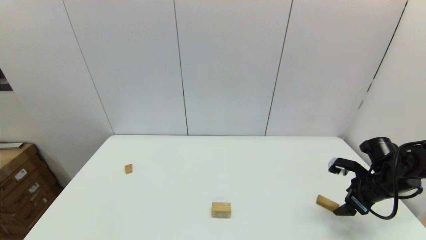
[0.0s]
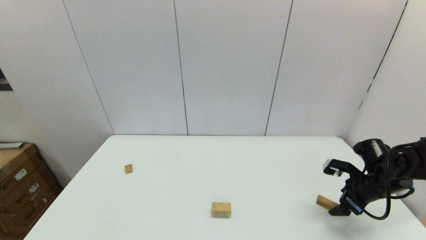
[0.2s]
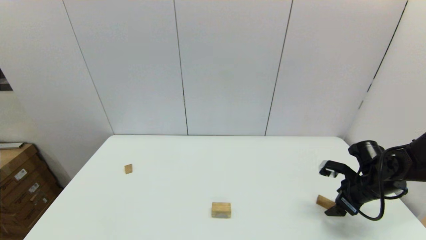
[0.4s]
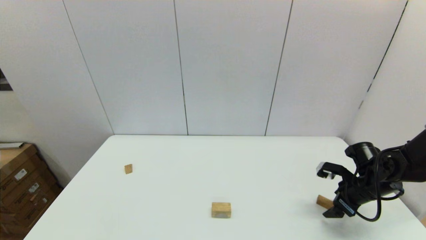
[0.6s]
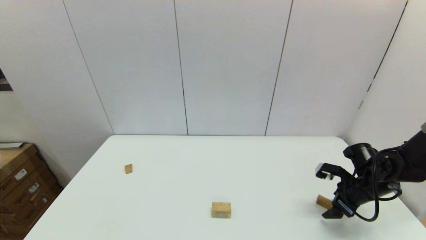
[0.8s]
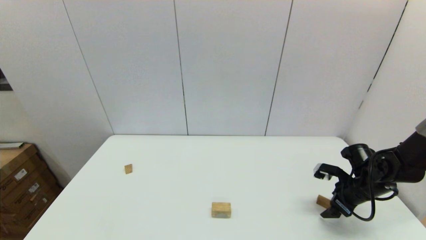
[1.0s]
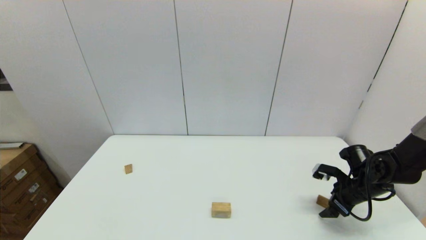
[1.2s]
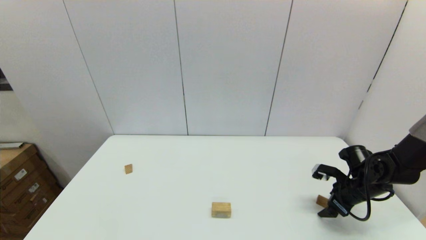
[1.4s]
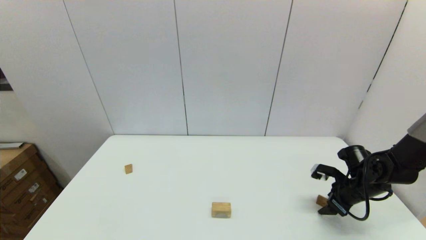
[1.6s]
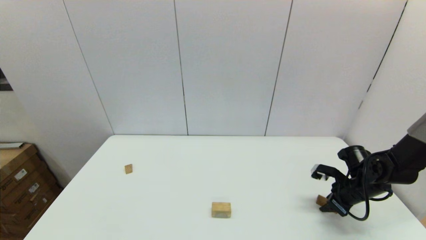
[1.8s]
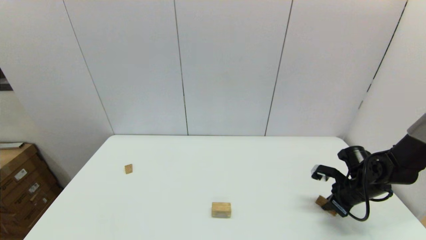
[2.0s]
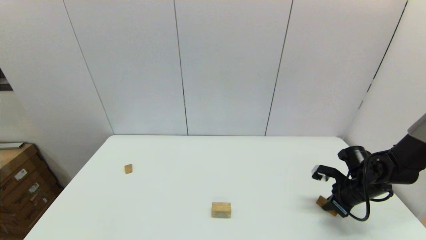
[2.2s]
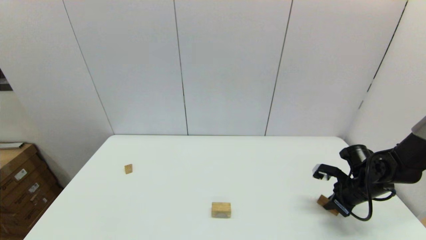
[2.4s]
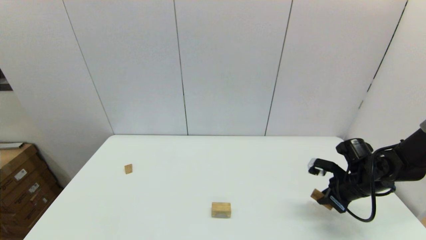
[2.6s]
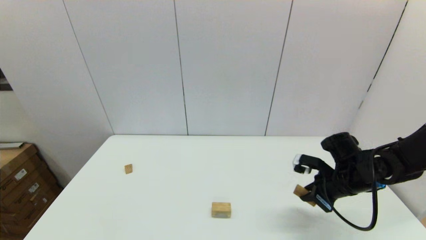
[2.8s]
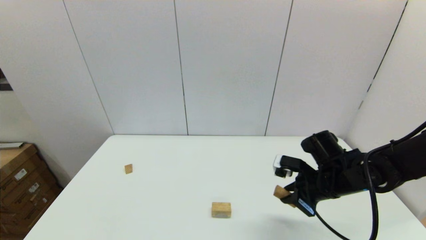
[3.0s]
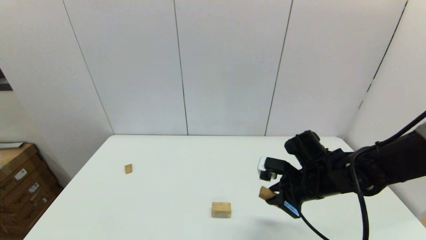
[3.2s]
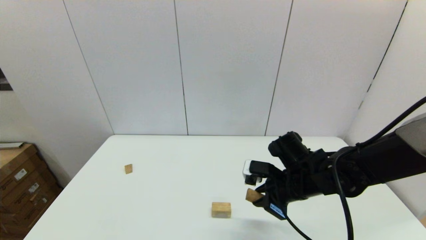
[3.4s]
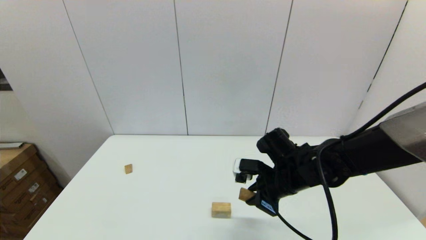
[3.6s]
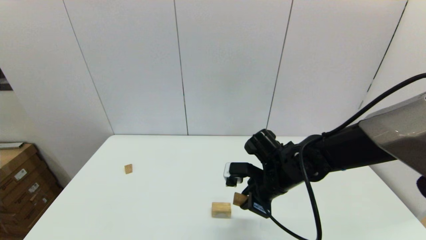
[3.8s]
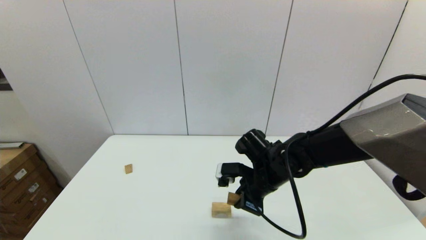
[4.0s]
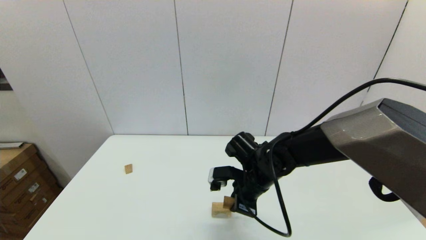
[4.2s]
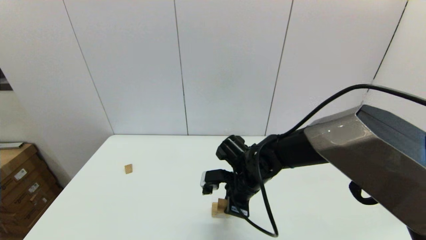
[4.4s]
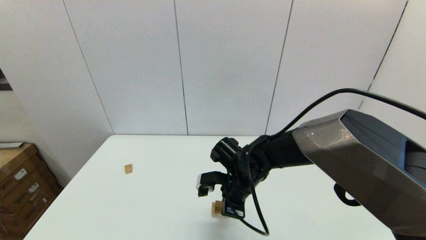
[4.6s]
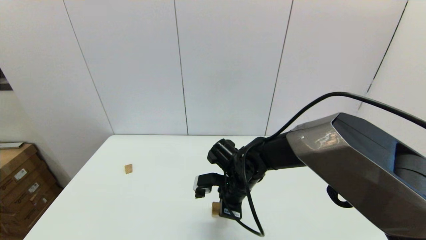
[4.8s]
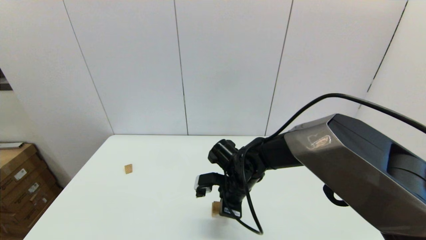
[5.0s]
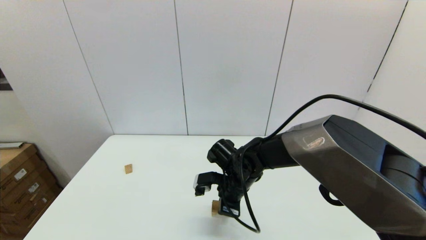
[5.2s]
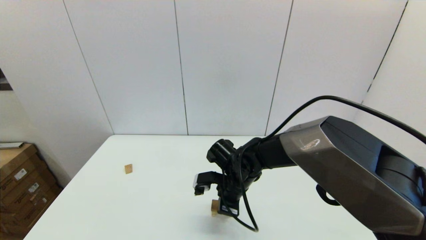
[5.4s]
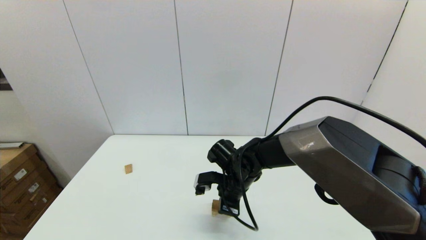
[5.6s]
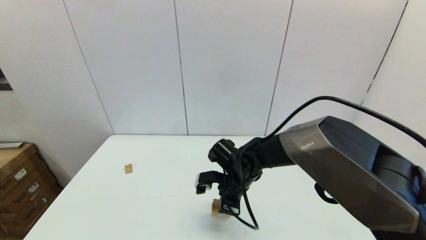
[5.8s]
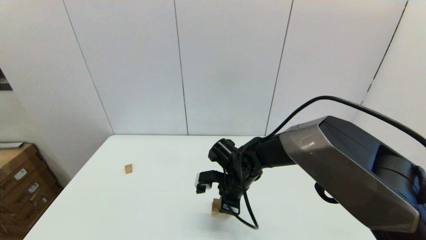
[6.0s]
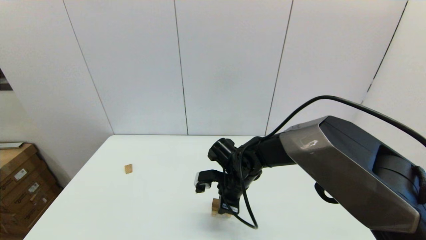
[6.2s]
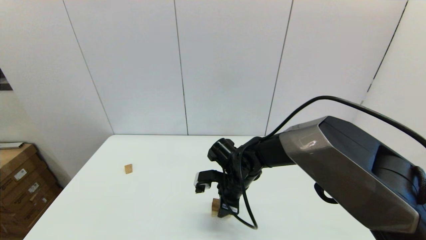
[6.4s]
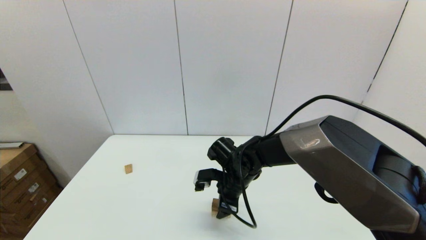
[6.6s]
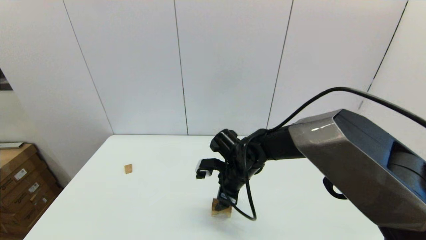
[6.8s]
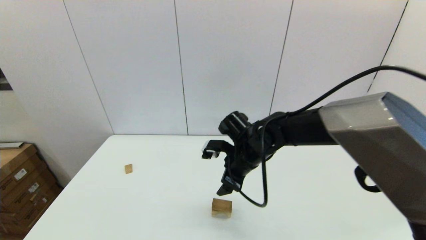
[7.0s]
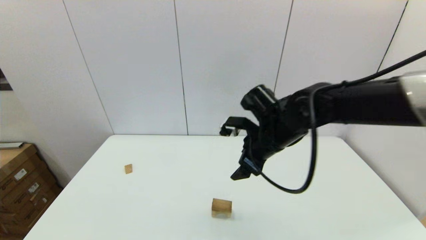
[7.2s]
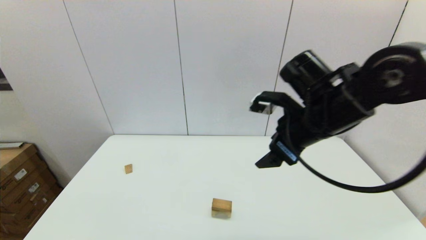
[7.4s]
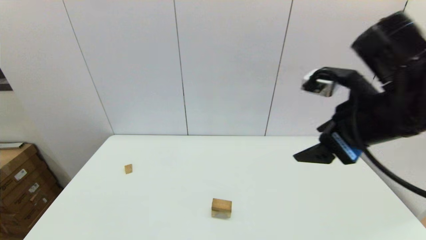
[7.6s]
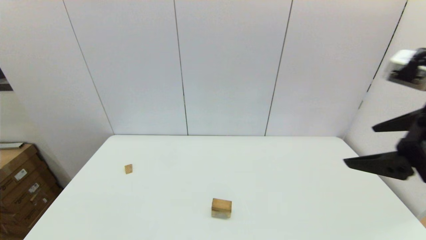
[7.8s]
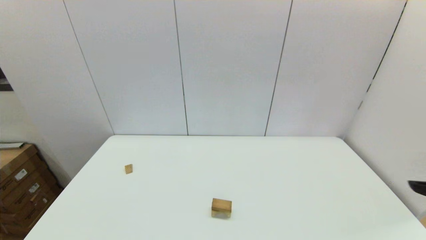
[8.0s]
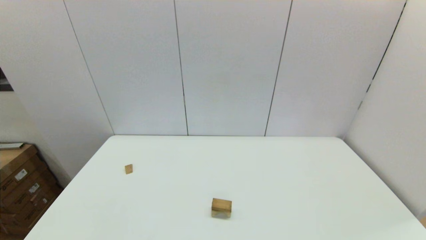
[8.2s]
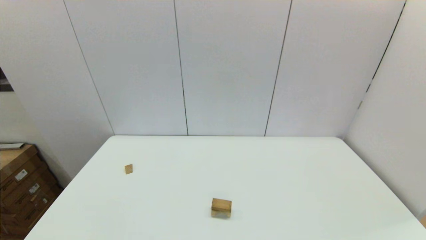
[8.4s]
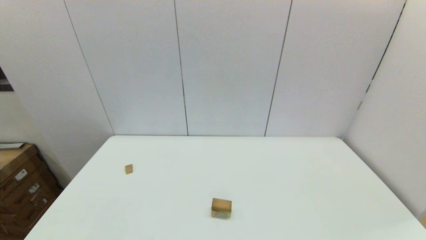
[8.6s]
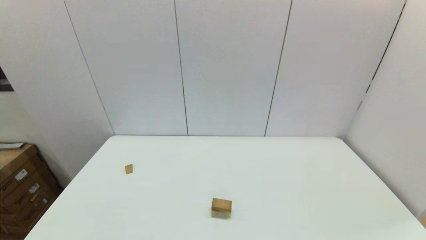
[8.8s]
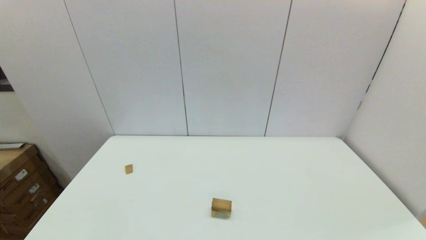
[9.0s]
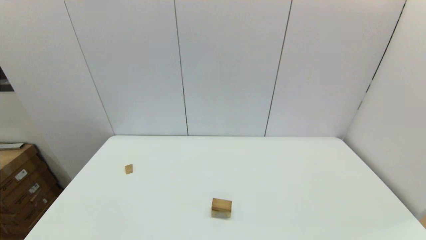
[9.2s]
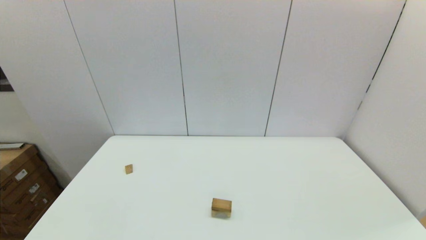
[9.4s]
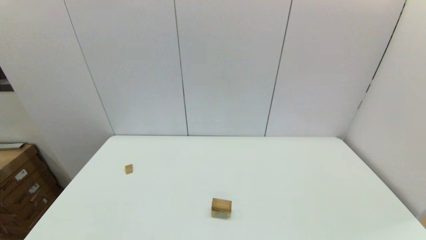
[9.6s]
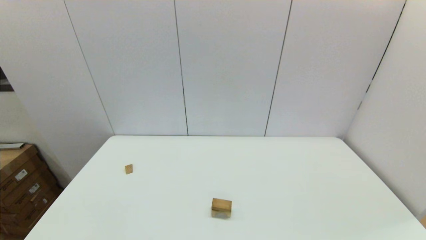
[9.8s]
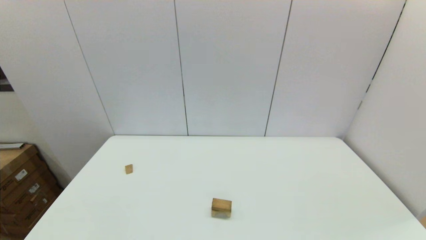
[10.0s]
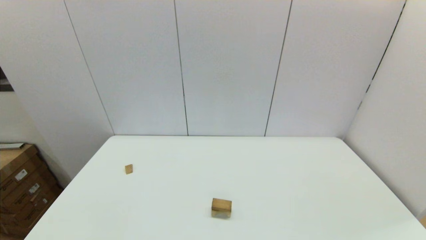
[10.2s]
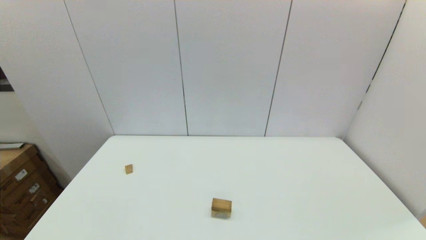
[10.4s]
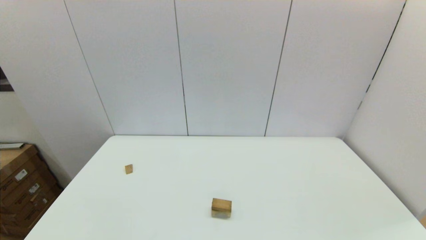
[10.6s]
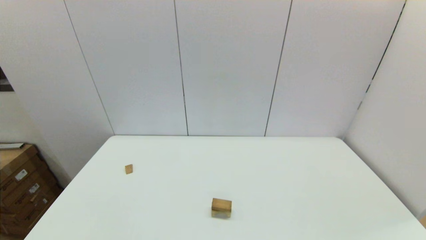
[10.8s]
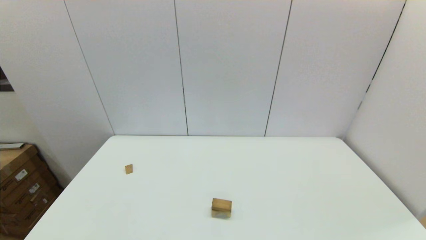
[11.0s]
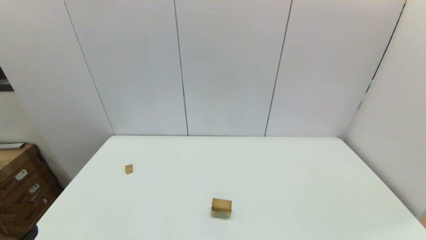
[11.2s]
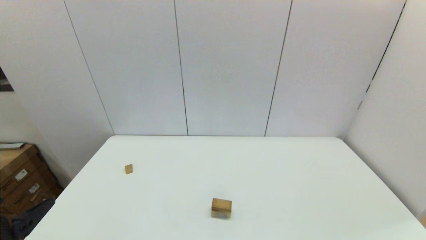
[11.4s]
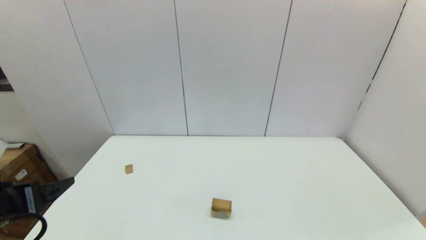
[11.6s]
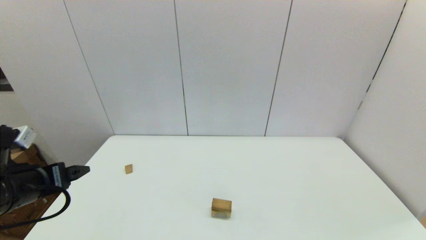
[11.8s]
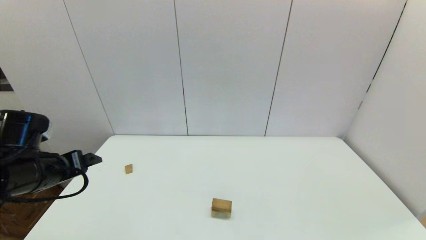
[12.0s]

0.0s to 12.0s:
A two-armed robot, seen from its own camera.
Task of the whole recording: place the arched building blocks in the center of the table, set up the rectangular building blocks, and then set up the triangular building blocks.
Step, 0.0s to 2.0s: Grasp the box-shaped block with the right gripper.
Step, 2.2s to 6.2s: Place the box-shaped block onto the arch-shaped block with the right gripper.
0.0s to 1.6s: The right gripper changes place by approximately 5 cm, and closes up.
1.6s to 3.0s: The right gripper heads to the left and upward, covering about 15 cm, and closes up.
3.0s to 4.4s: The right gripper goes about 15 cm to the left.
4.4s to 6.0s: The grippers stay close to where they were, moving slightly.
6.0s to 7.6s: The right gripper heads upward, to the right and backward, covering approximately 35 cm, and opens its fingers.
7.6s to 9.0s: The right gripper moves backward, downward and to the right, approximately 35 cm.
10.4s to 12.0s: The left gripper travels forward by roughly 25 cm.

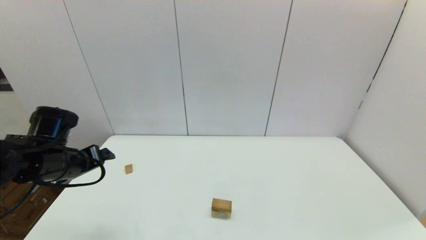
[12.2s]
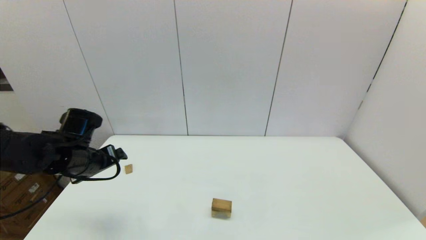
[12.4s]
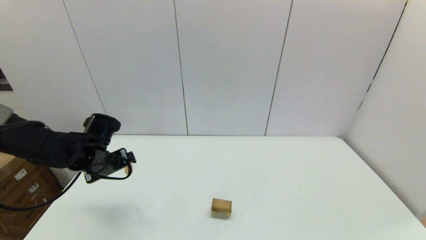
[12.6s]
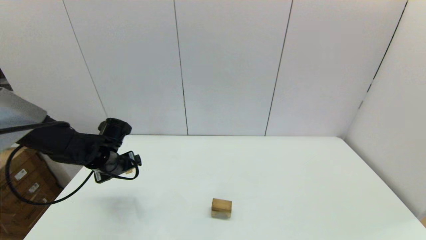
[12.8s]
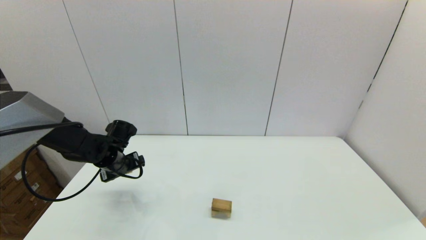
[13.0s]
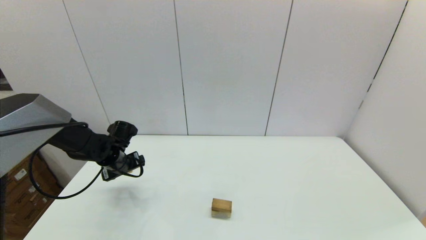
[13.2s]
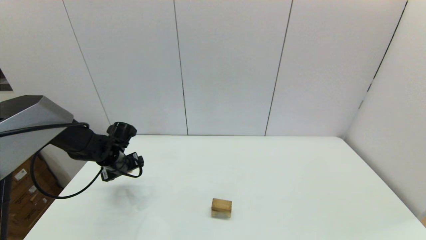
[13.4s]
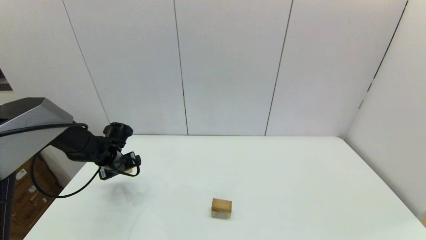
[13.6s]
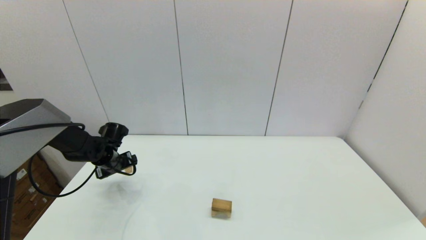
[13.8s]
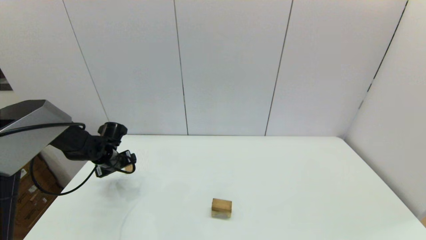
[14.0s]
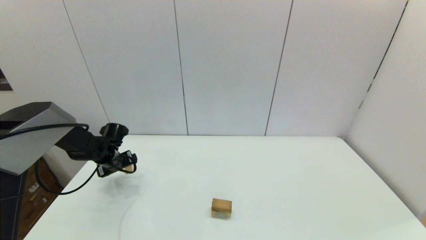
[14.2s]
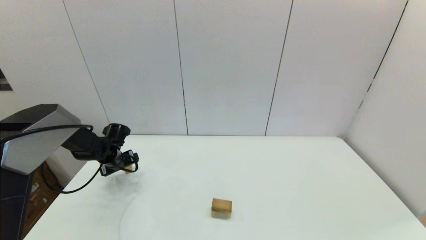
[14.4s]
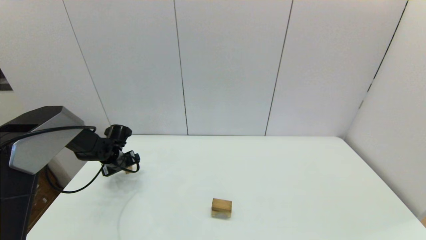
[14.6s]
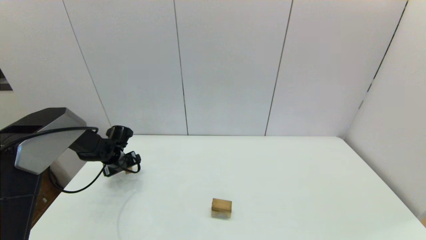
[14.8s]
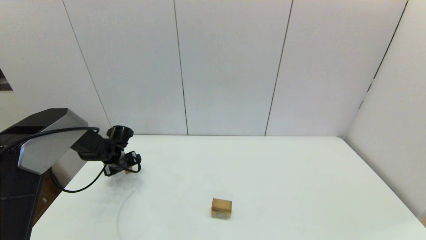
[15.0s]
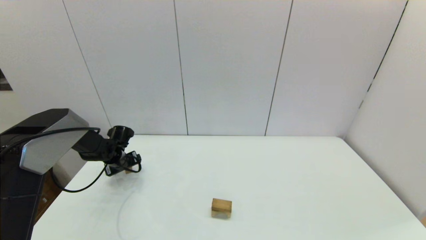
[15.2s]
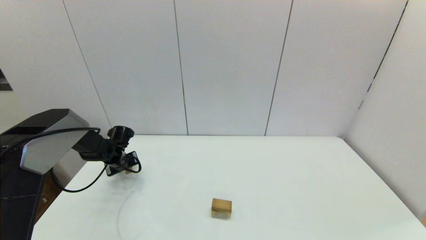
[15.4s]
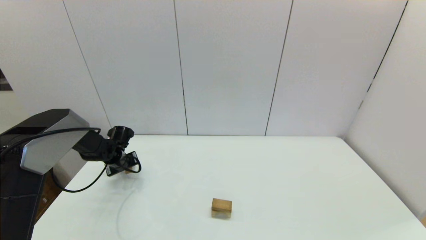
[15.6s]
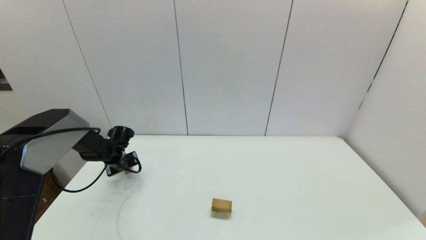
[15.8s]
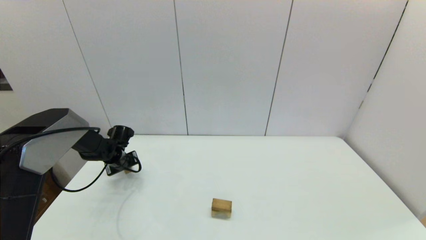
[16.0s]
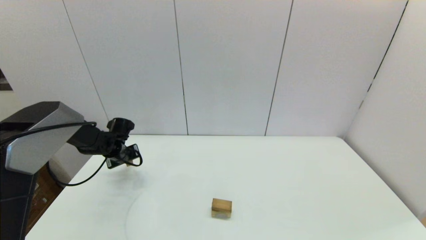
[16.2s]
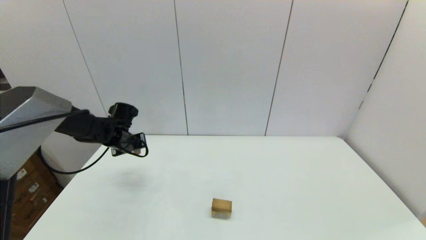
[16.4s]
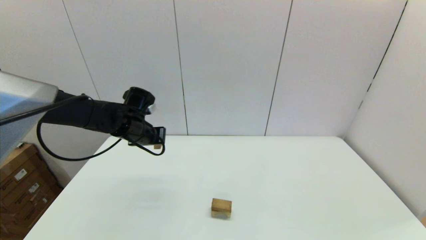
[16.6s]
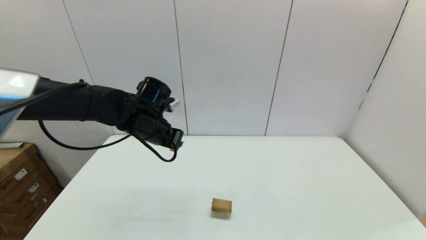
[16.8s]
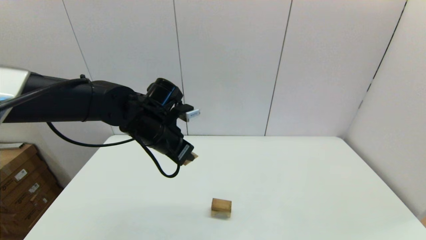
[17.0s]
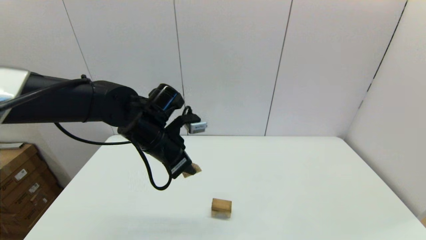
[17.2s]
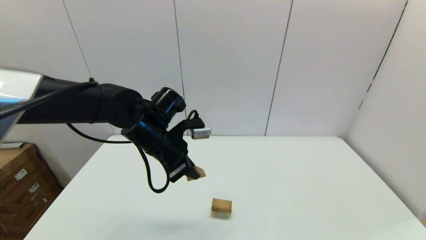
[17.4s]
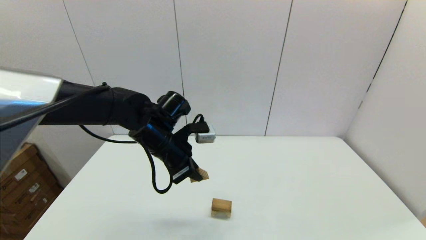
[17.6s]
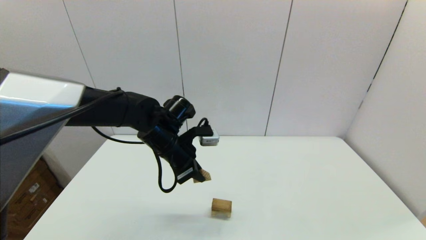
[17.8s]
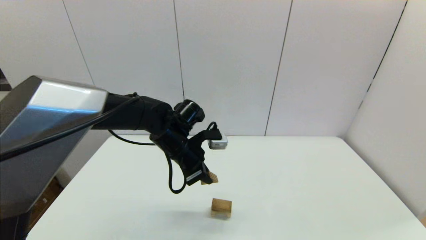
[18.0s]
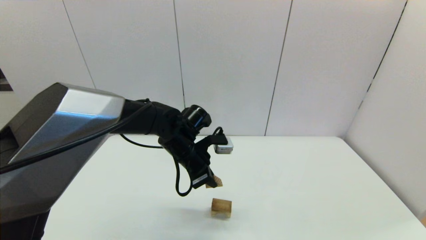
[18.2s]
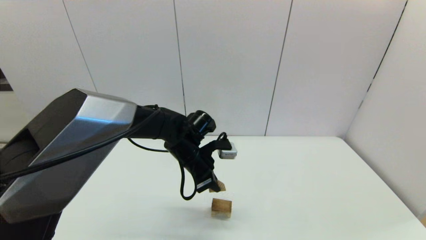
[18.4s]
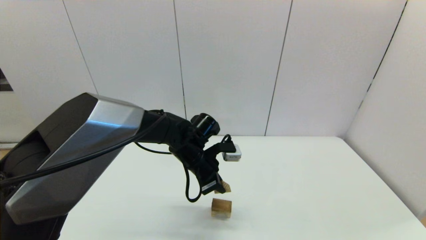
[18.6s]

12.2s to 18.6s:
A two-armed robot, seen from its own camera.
Task of the whole recording: place the arched building blocks in the center of the table, set up the rectangular building blocks, and then set up the triangular building blocks.
Step, 12.2s to 15.8s: Grasp the triangle-shaped block with the left gripper.
12.2s to 13.8s: The left gripper travels forward and downward by about 20 cm.
13.8s to 15.4s: The left gripper ends up some 5 cm from where it was, and closes.
15.4s to 17.0s: The left gripper heads upward, to the right and backward, covering roughly 30 cm, and closes.
17.0s to 18.6s: The left gripper heads downward and to the right, covering about 10 cm.
